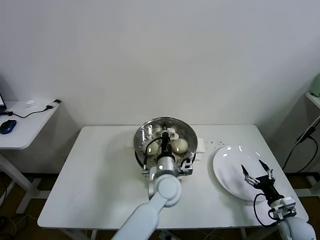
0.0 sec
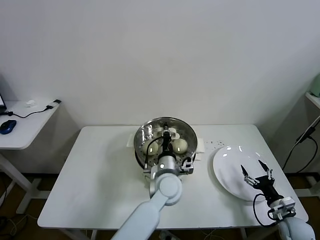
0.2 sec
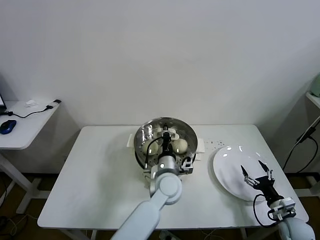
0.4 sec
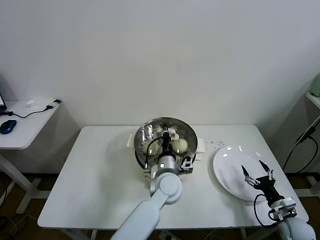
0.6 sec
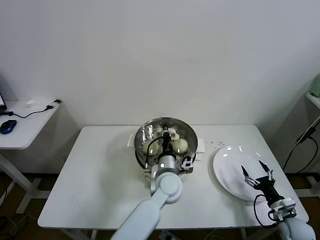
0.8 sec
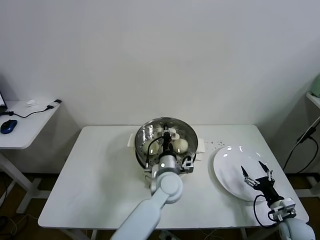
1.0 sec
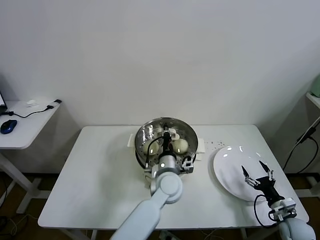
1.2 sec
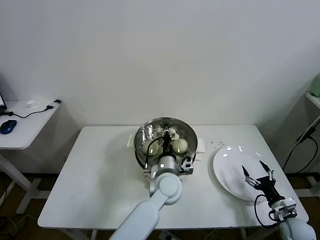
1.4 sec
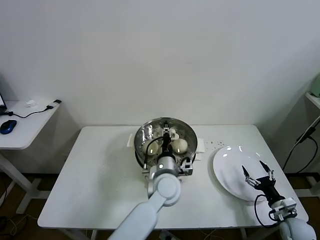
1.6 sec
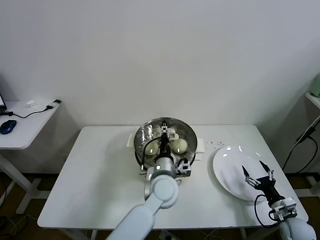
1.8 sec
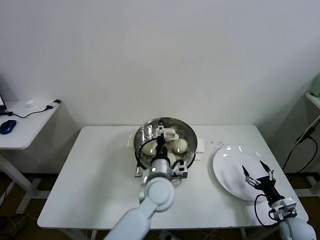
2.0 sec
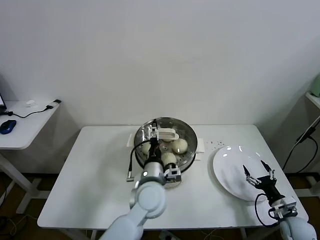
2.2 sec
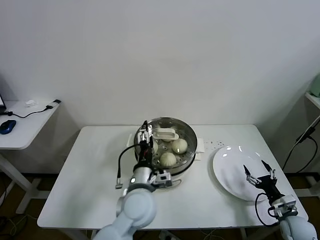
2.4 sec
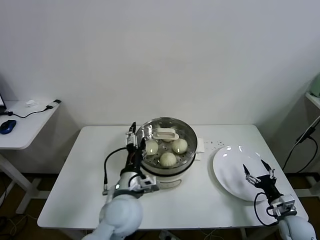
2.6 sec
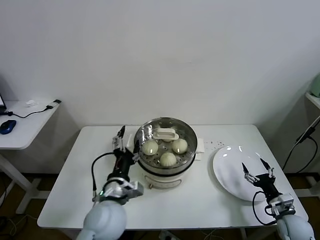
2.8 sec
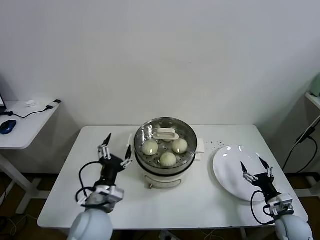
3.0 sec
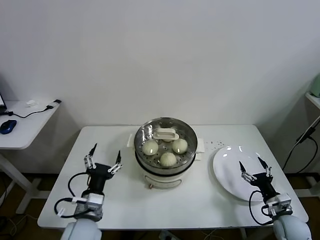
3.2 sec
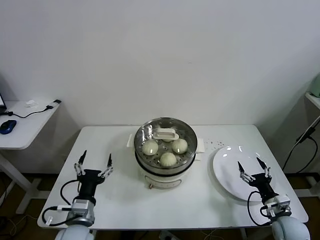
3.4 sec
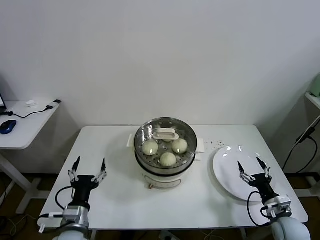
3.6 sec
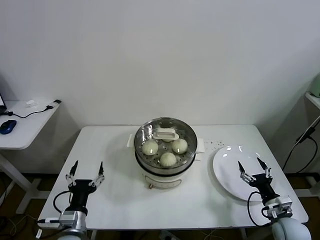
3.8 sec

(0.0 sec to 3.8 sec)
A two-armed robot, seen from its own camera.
Task of the whole recording: take steamed baozi put them in steamer.
Step, 0.0 sec - 2.0 sec: Place the pot lid on the steamer with left gripper.
0.0 sec - 1.2 sec: There are only small adjustments of the grippers.
1.2 sec - 2.6 sec: The left gripper moves to the left, backward and upward, approximately 15 cm, and opens up.
2.6 sec - 3.8 sec: The right gripper shifts by roughly 5 cm. The left gripper heads to the left, downward and backward, covering some 20 cm.

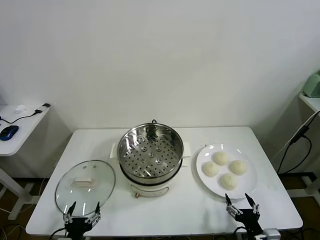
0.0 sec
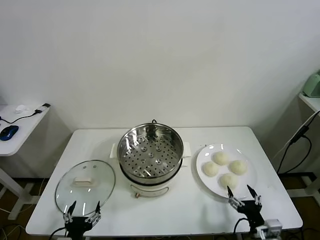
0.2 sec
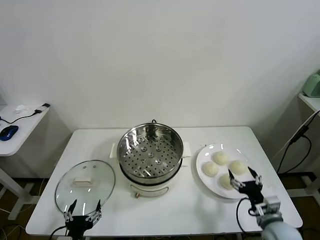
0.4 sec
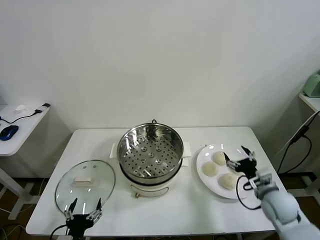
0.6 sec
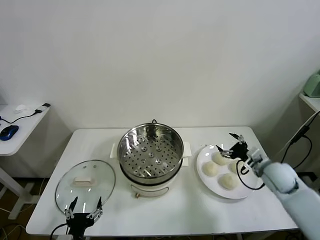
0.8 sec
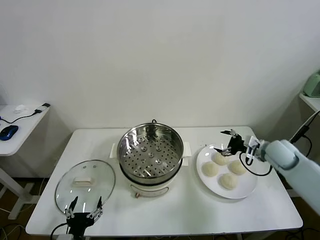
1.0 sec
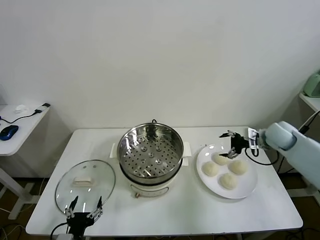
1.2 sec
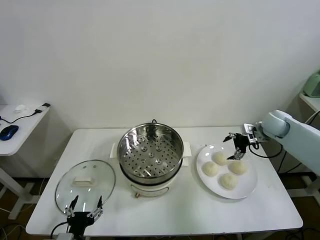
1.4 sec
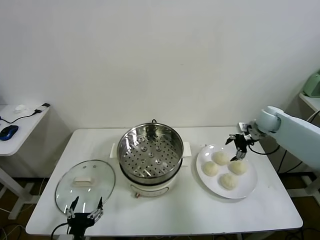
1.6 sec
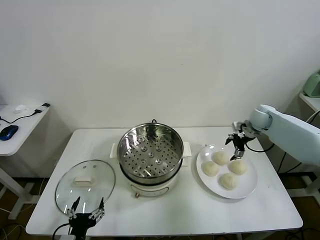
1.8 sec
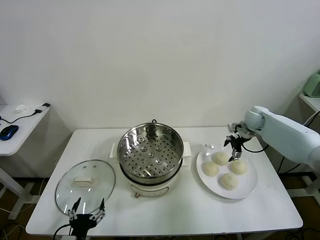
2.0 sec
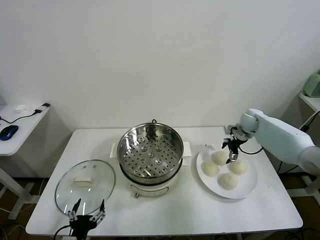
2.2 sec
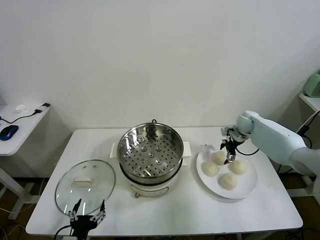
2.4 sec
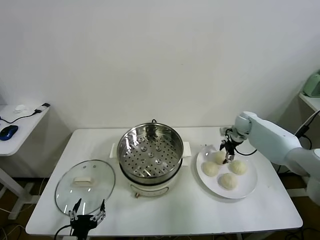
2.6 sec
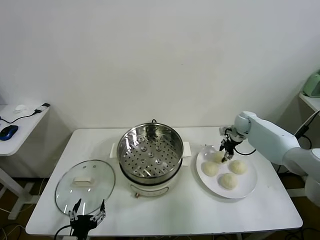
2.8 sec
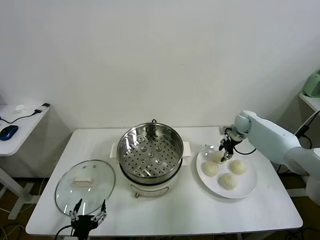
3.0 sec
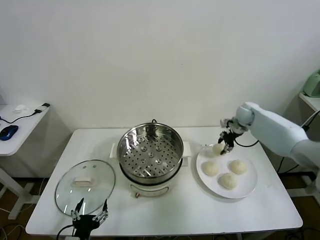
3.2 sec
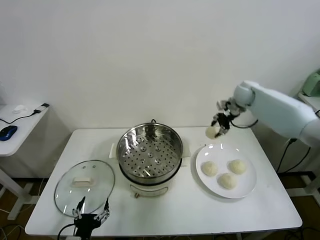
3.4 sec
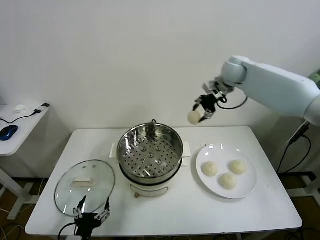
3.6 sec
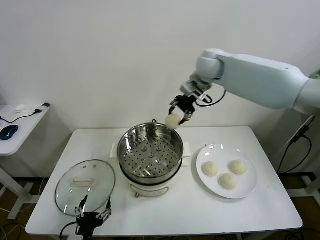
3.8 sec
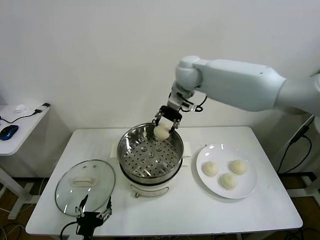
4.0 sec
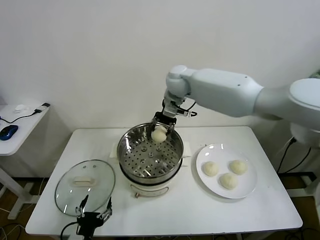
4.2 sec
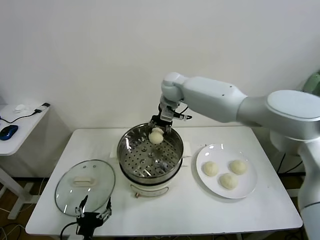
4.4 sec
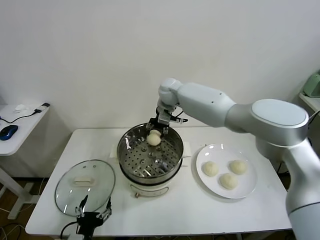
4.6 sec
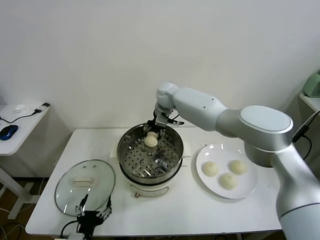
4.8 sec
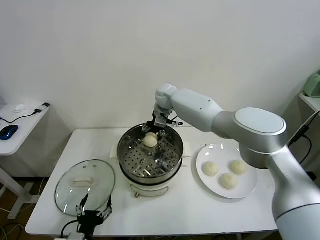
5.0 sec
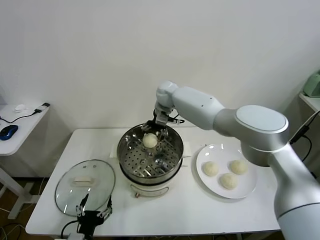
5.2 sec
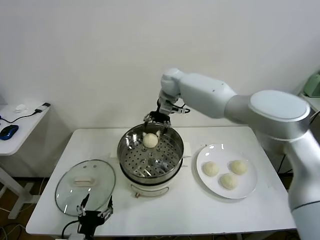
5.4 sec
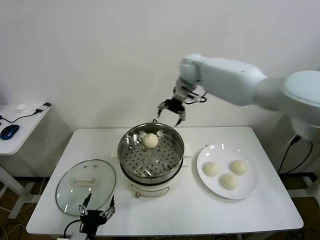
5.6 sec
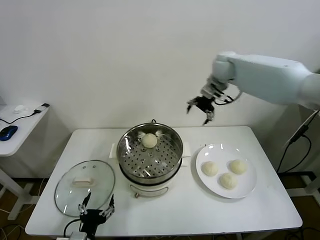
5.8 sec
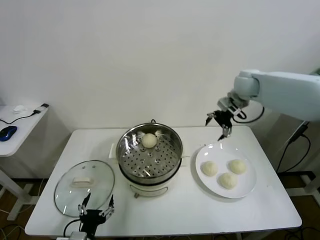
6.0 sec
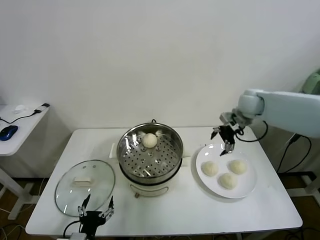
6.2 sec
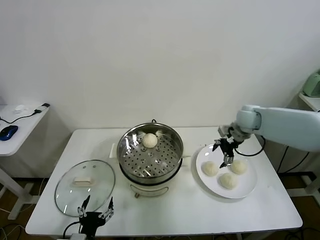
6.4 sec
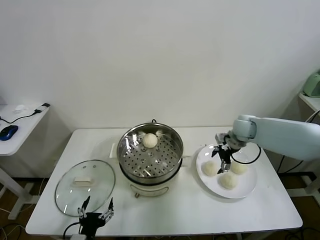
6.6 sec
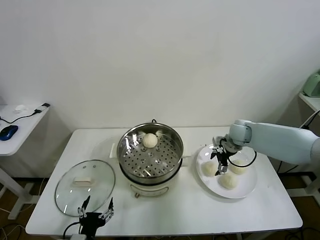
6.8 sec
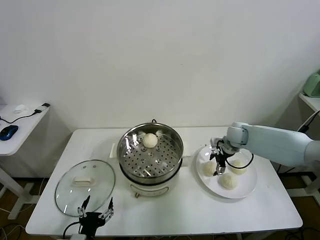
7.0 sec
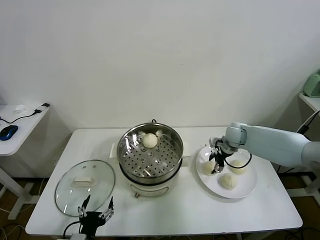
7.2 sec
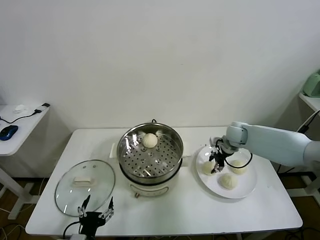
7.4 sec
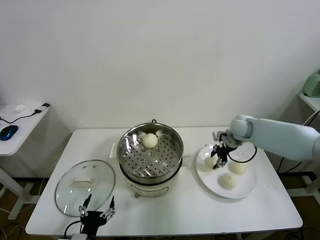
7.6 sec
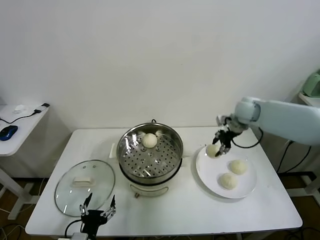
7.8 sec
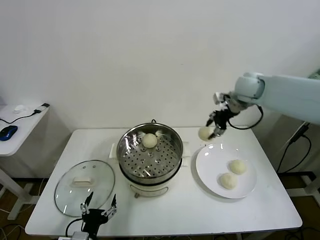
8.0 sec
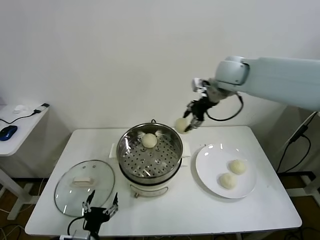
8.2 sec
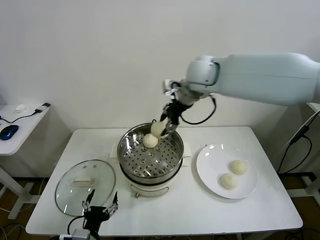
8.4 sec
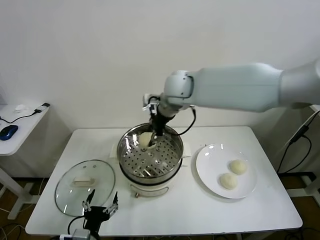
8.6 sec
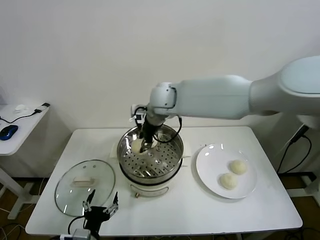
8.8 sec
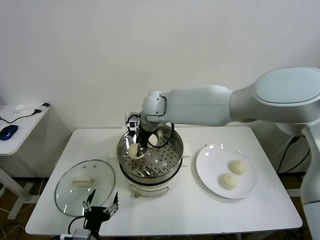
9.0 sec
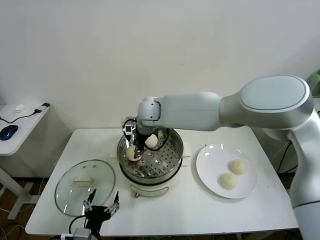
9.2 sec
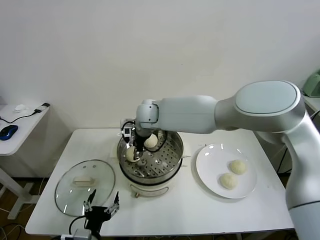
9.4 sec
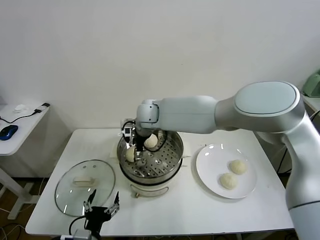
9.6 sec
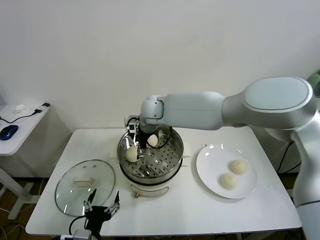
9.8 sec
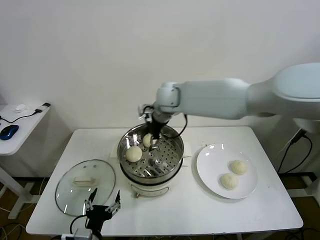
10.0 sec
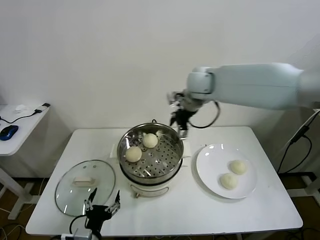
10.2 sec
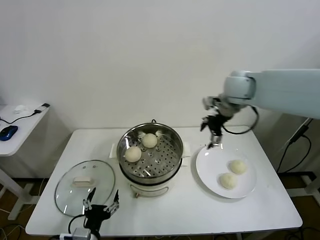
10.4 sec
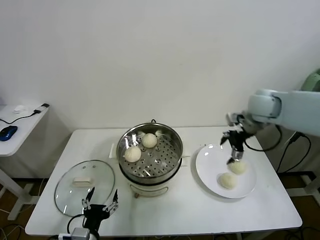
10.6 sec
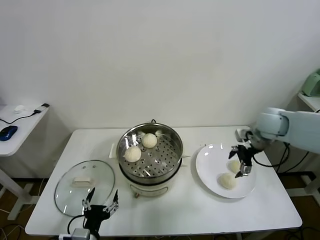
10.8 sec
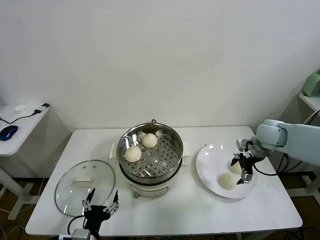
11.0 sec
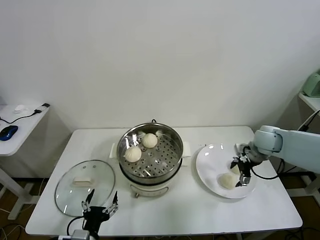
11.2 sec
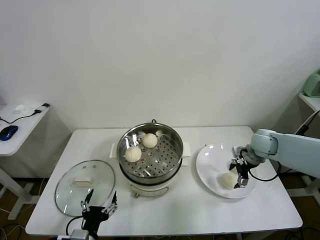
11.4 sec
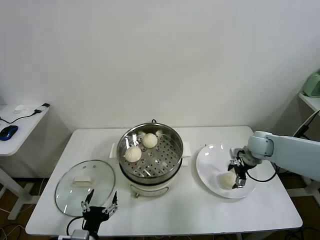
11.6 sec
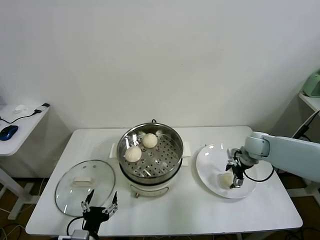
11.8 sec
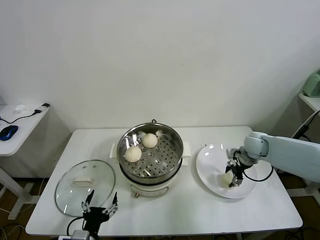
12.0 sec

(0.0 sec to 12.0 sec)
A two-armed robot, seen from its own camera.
Task of the whole recording: take steamed baozi put them in steamer.
Step, 0.0 sec - 2.8 sec: Grasp the baozi in the plate with right gripper.
Step, 3.0 sec - 5.4 sec: Place the baozi on the steamer with right gripper.
Step, 5.6 sec - 7.2 sec: Grasp the baozi in the plate with right gripper.
Step, 7.4 sec - 9.8 sec: Place the baozi on the steamer with right gripper.
1.6 sec - 3.0 sec: The right gripper changes place by about 10 cm, and closes up.
3.0 sec - 4.4 sec: The right gripper shifts about 35 cm to the left and upward.
4.4 sec - 6.0 sec: The right gripper heads to the right, covering about 25 cm, and opens.
6.0 sec - 7.6 sec: The right gripper travels downward by some 10 cm, and closes up.
7.6 sec - 9.0 sec: The right gripper heads to the left, covering about 35 cm.
9.0 sec - 10.4 sec: The right gripper shifts about 30 cm to the right, and opens.
10.4 sec - 12.0 sec: The right gripper moves downward and to the right, approximately 25 cm, and closes.

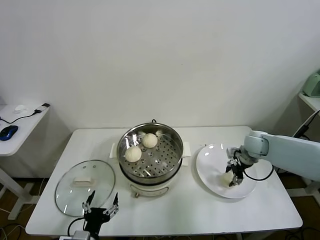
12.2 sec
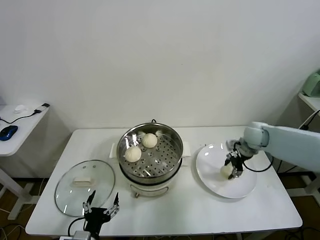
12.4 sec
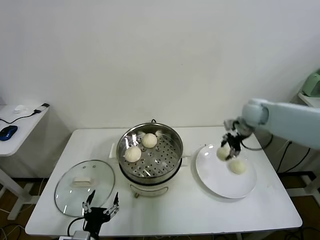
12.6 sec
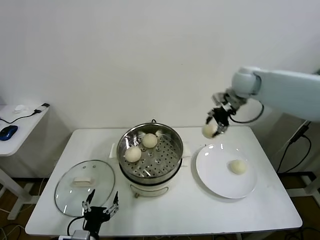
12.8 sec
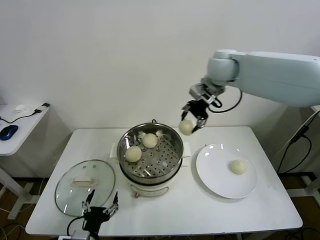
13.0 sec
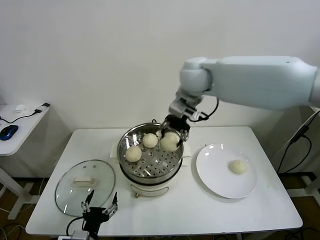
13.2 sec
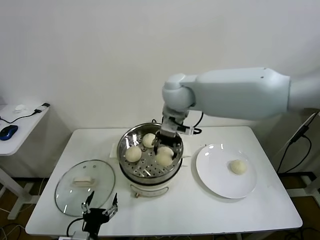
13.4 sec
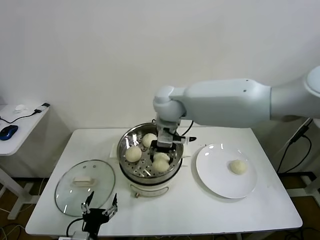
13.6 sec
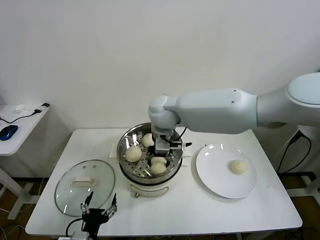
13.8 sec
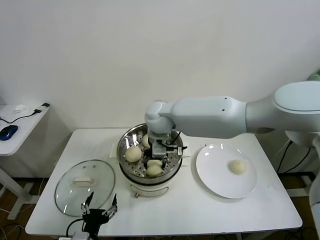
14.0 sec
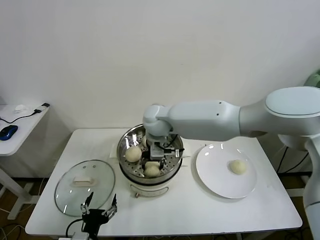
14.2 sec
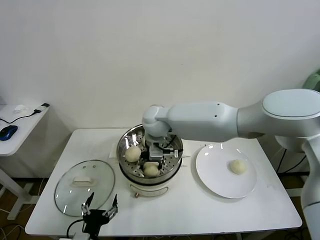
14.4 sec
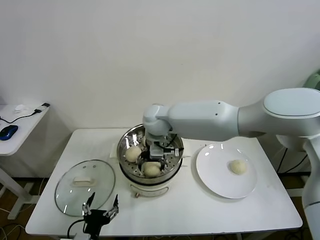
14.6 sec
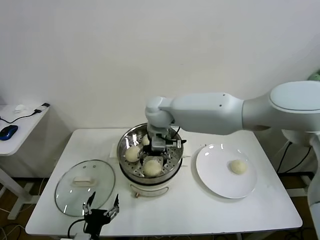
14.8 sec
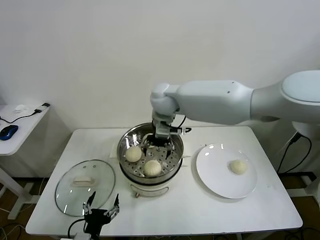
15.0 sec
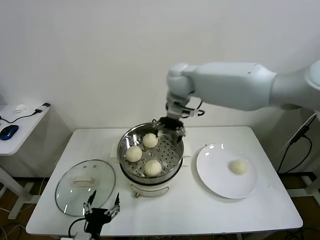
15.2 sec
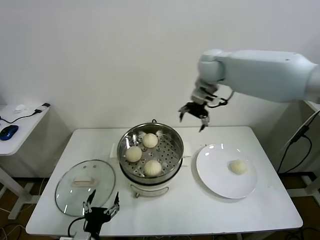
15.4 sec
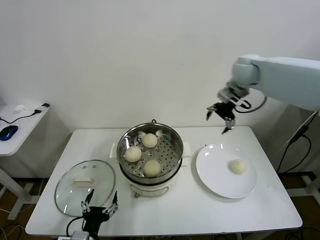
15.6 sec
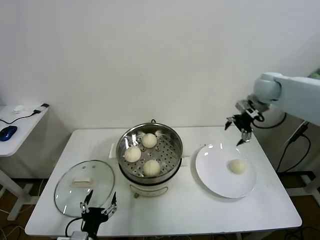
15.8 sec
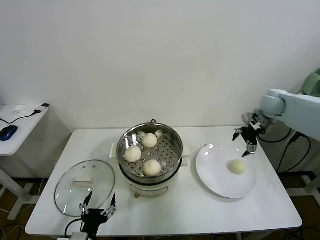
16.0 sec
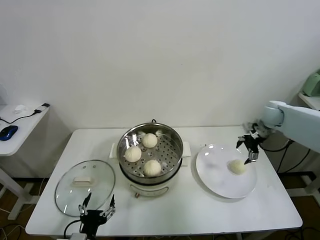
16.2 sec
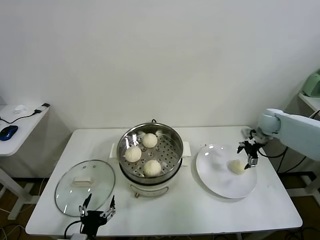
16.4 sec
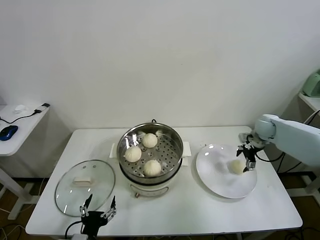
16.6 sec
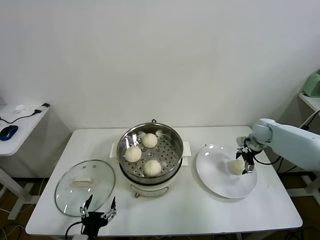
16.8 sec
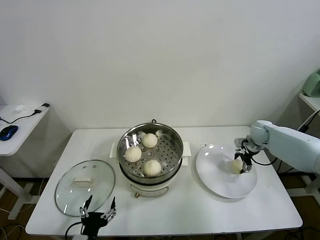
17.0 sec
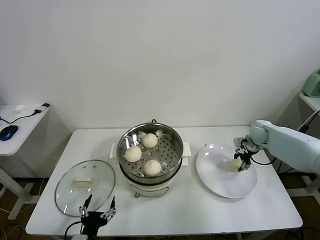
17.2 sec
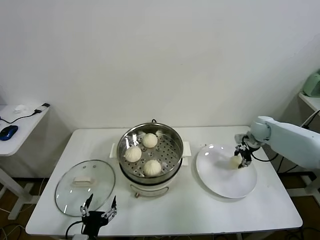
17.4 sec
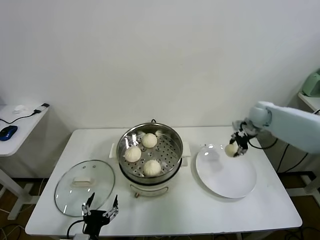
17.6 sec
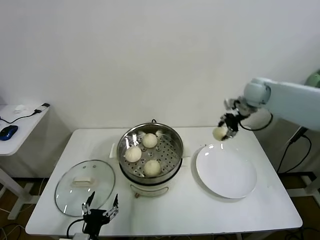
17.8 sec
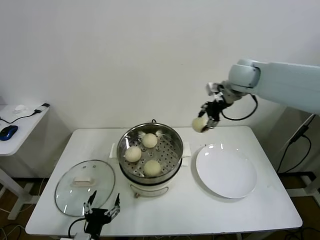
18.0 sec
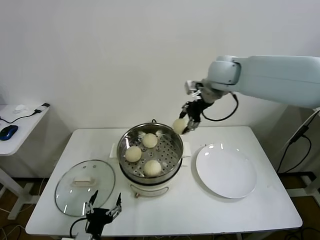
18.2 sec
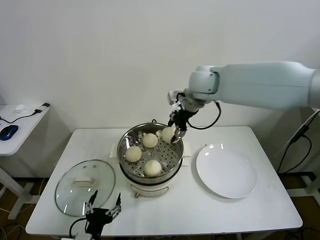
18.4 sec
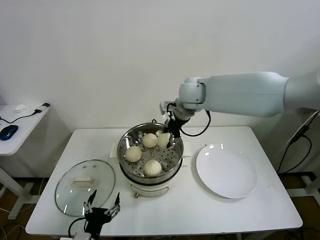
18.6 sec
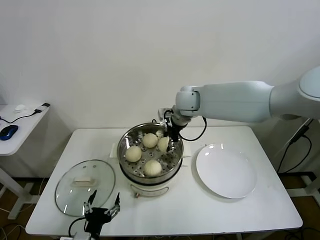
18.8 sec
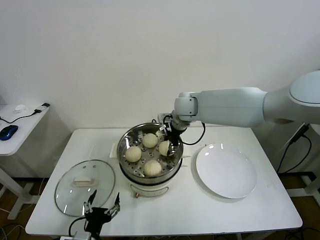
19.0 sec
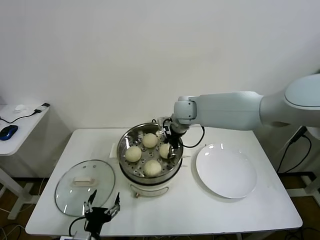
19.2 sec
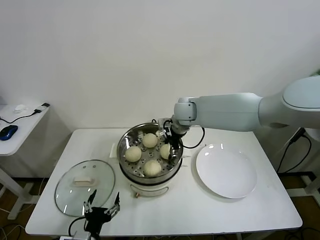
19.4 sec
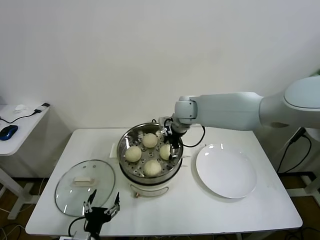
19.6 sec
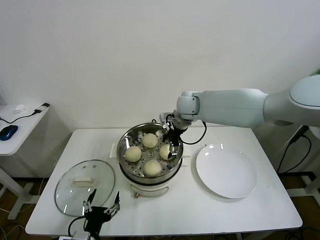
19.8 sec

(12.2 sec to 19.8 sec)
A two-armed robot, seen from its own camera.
Task of the whole recording: take steamed baozi put them in steamer.
Step, 12.4 sec - 14.8 sec: Place the baozi on the steamer with right gripper.
Step, 15.0 sec - 17.2 sec: Grasp the baozi in the plate with right gripper.
Step, 17.4 sec - 19.8 sec: Place the baozi on the steamer with right gripper.
12.2 sec - 13.8 sec: The right gripper shifts approximately 40 cm to the left and upward.
13.8 sec - 15.2 sec: The right gripper moves upward, forward and to the right, about 15 cm, and opens up.
15.2 sec - 16.8 sec: The right gripper moves to the right and downward, some 40 cm.
16.8 sec - 18.2 sec: The right gripper travels upward and to the left by roughly 35 cm, and closes.
18.2 sec - 19.8 sec: The right gripper is displaced downward and to the left by some 15 cm, and opens up.
